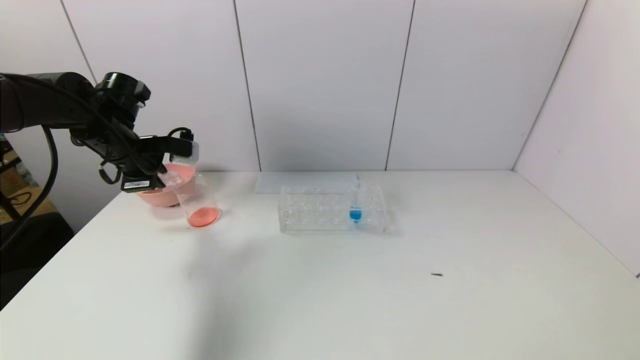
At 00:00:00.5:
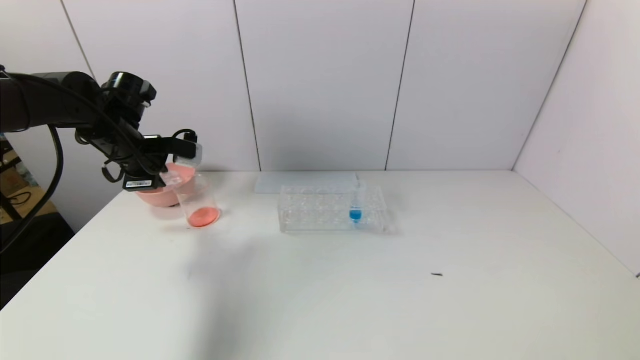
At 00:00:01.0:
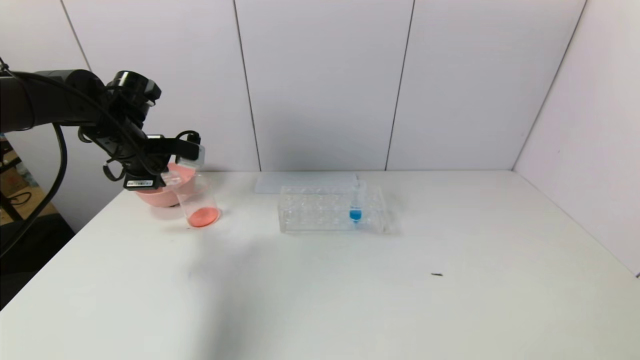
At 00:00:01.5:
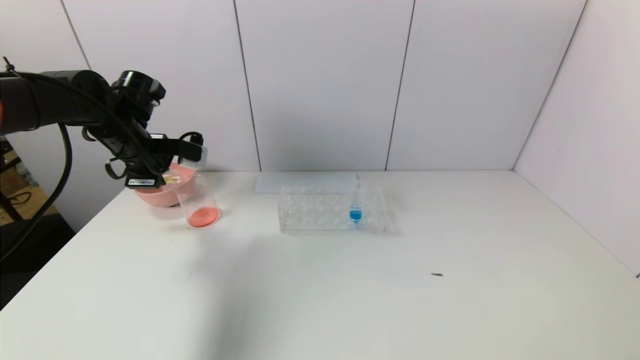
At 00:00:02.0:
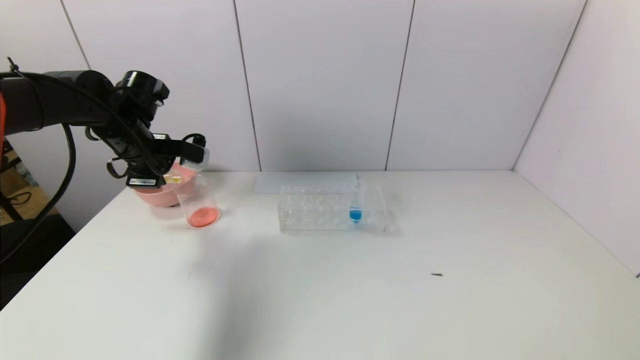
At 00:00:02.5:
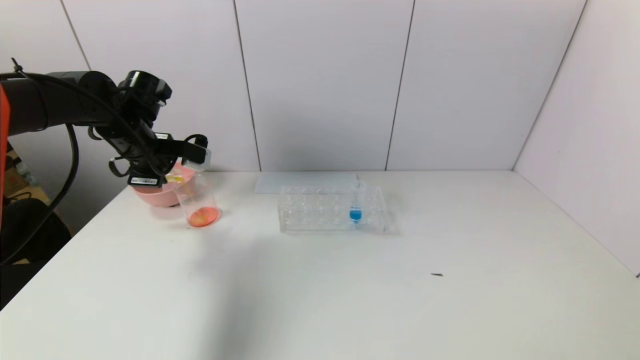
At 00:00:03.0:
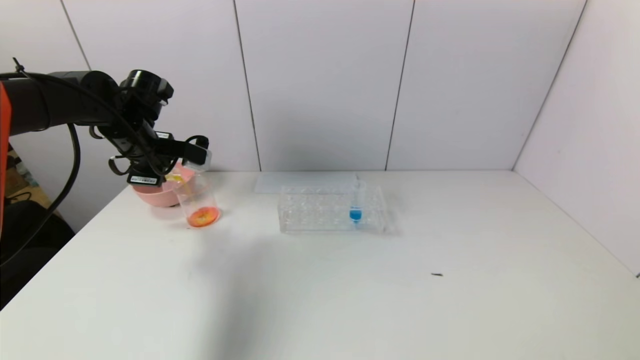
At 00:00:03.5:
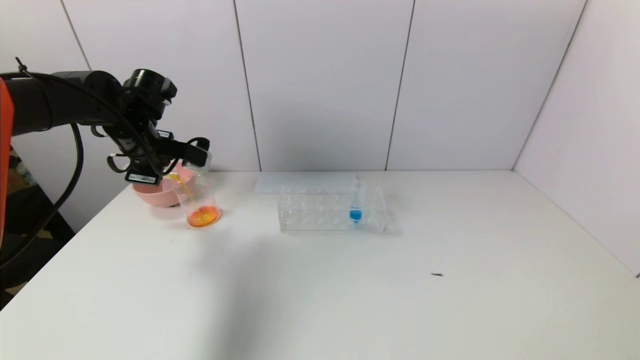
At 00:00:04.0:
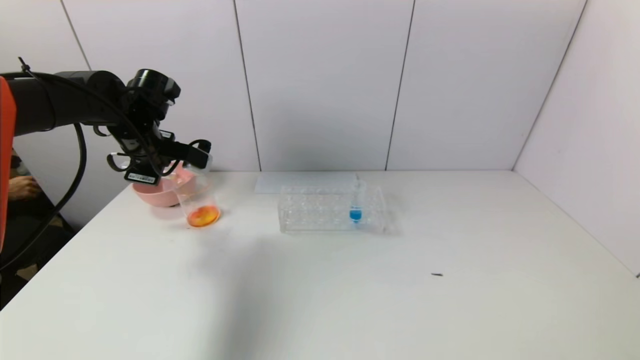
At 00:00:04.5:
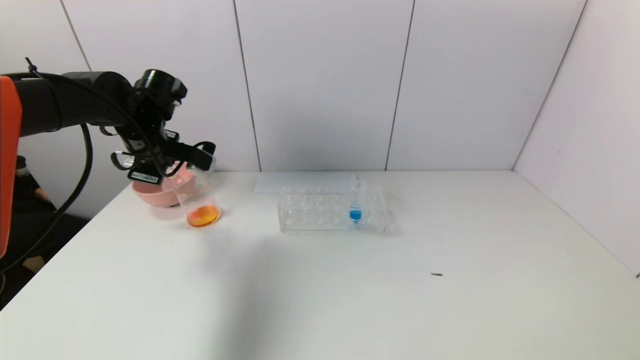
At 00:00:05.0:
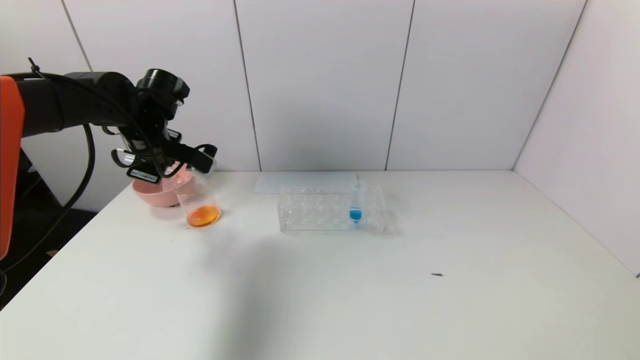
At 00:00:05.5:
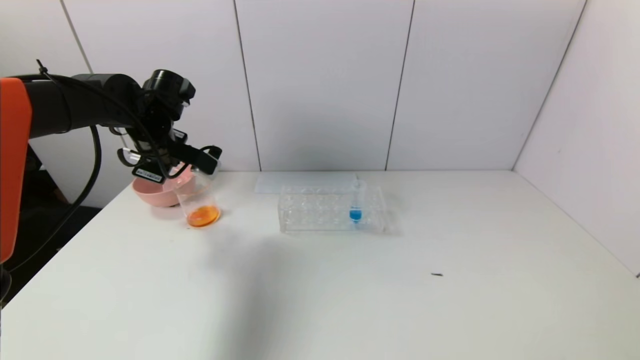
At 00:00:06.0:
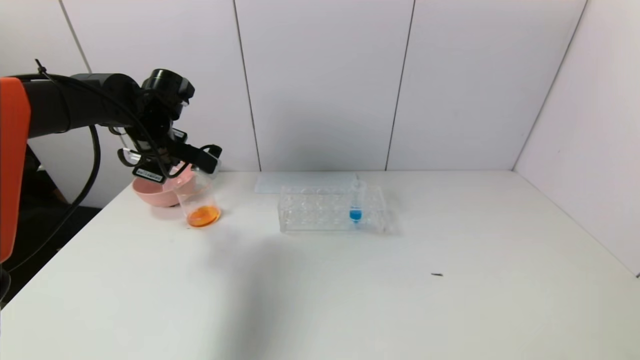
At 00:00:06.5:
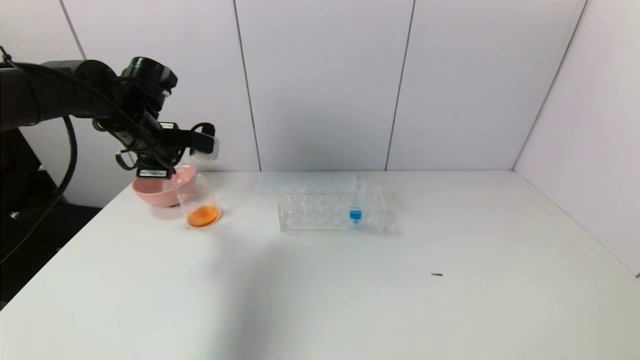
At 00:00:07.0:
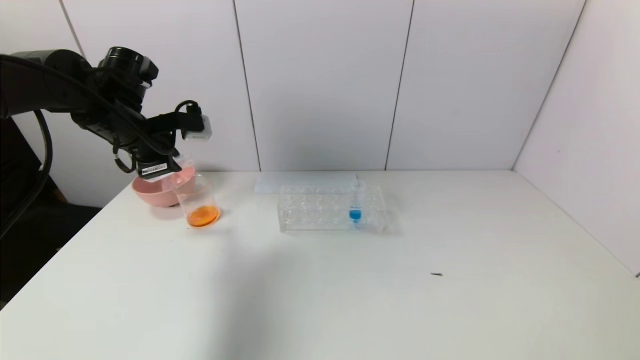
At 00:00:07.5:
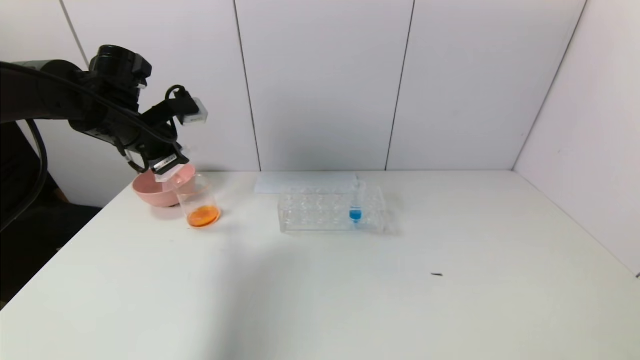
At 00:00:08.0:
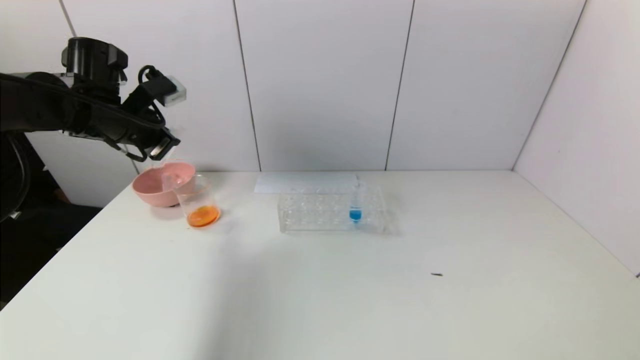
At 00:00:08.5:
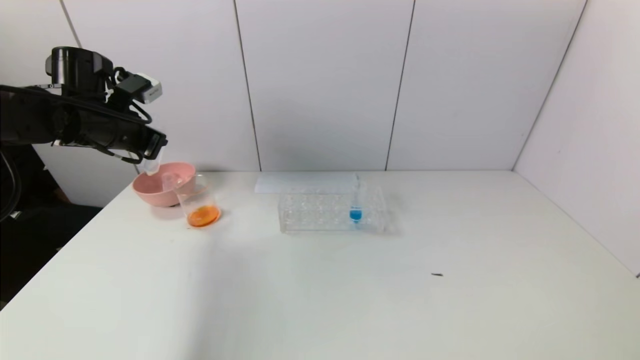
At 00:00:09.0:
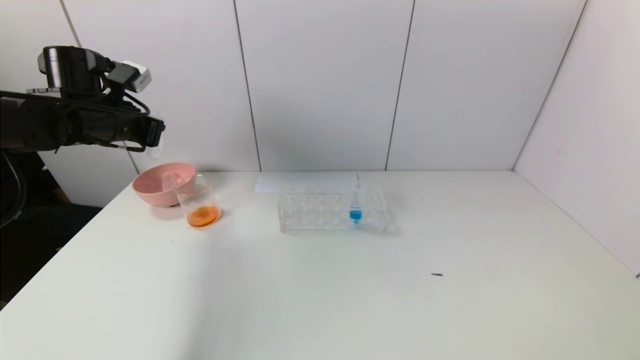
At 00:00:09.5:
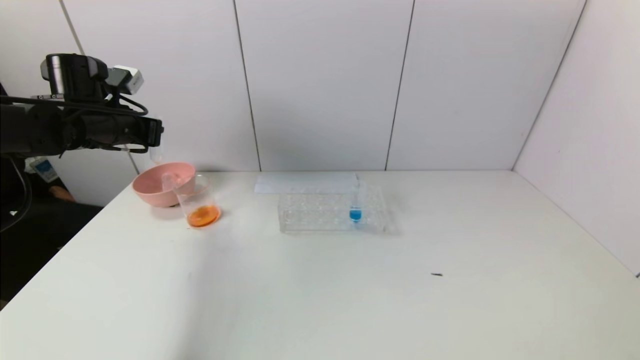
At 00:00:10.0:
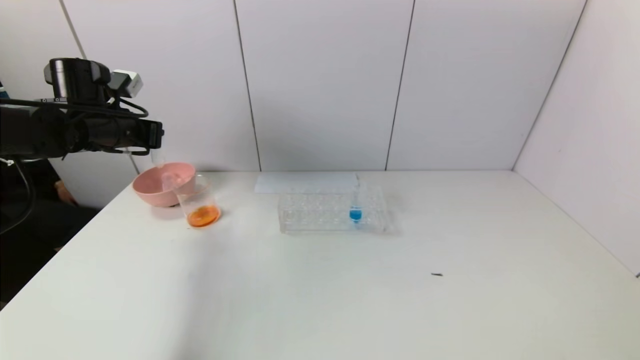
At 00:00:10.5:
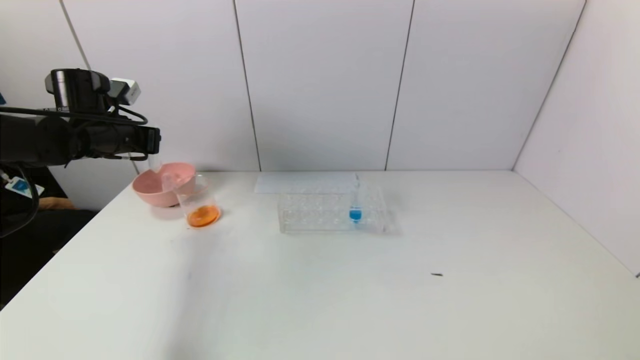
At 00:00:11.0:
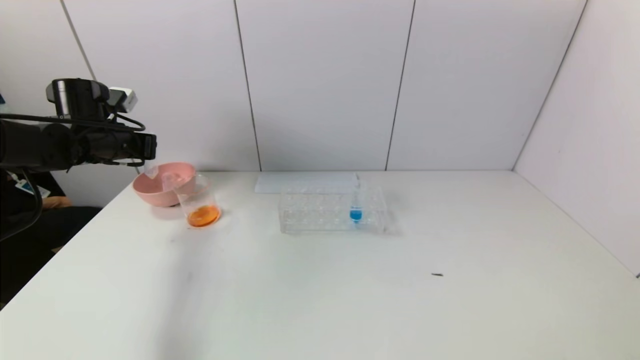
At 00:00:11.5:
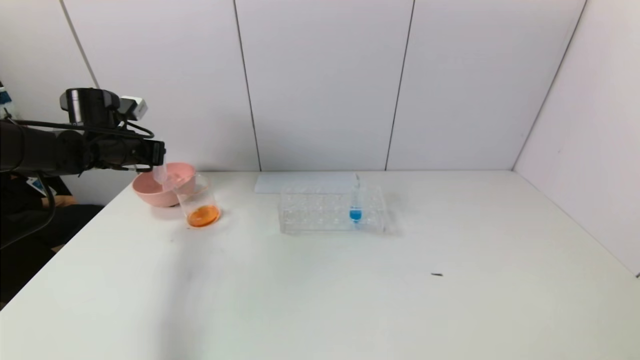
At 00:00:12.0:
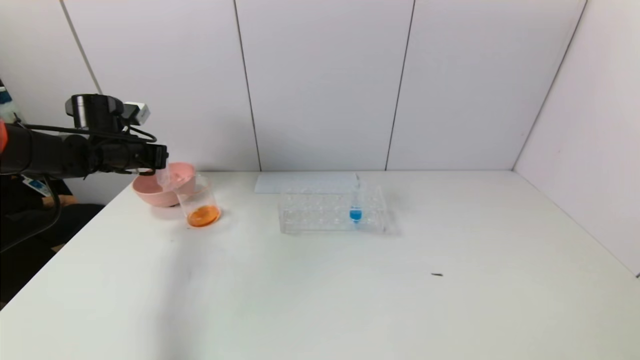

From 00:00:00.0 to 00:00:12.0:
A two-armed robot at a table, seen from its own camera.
Task of the whole recording: pick up the test tube with yellow pigment and the test tube with red pigment by grippers and pour them into the beaker.
Step, from 00:00:00.0 to 00:00:06.0: Pour the yellow reagent into the graduated cylinder with the left gripper.
From 00:00:00.0 to 00:00:02.0: There are only small adjustments of the grippers.
From 00:00:02.0 to 00:00:06.0: The grippers move only a little.
From 00:00:06.0 to 00:00:08.0: The left gripper ends up some 5 cm from where it was.
From 00:00:10.0 to 00:00:12.0: The left gripper heads downward, covering about 5 cm.

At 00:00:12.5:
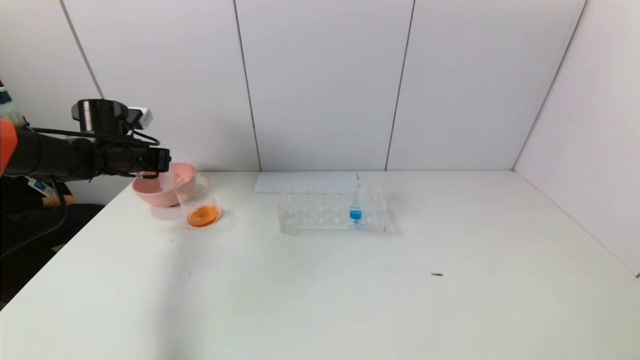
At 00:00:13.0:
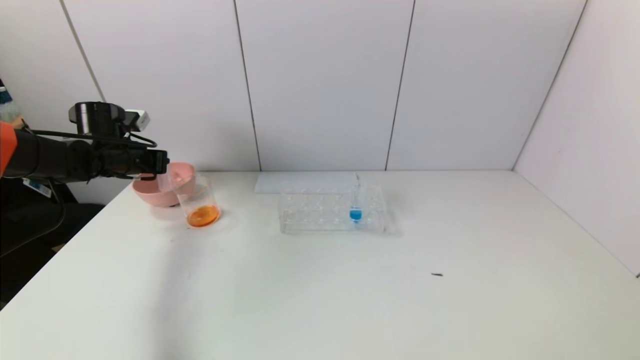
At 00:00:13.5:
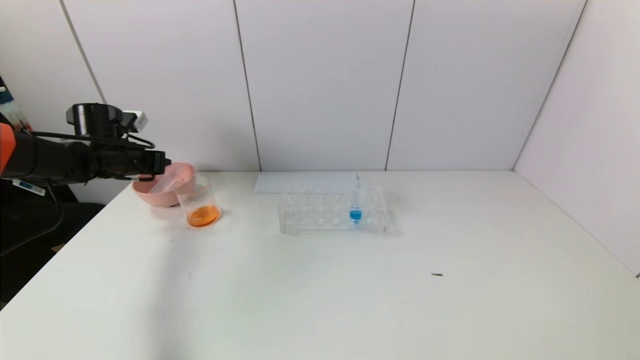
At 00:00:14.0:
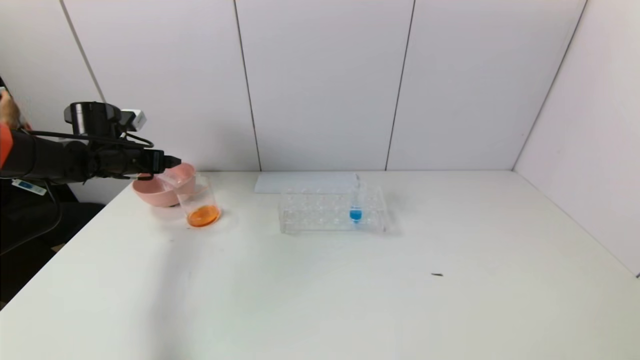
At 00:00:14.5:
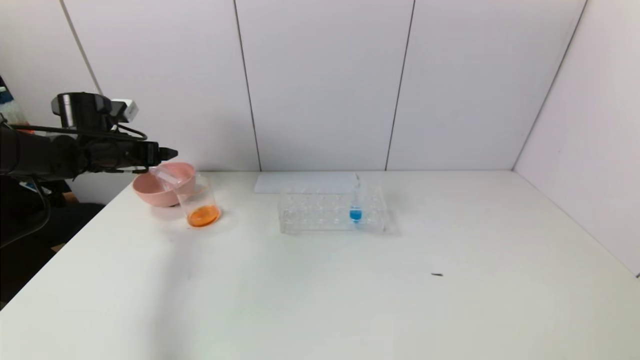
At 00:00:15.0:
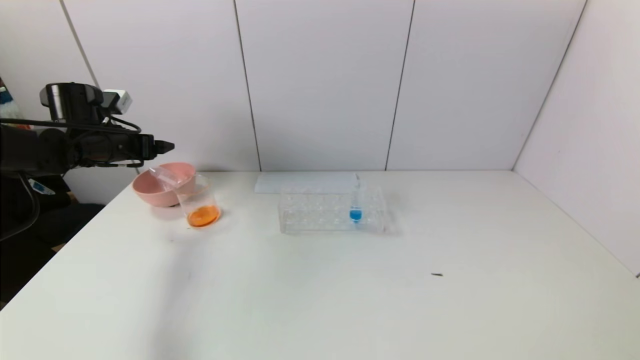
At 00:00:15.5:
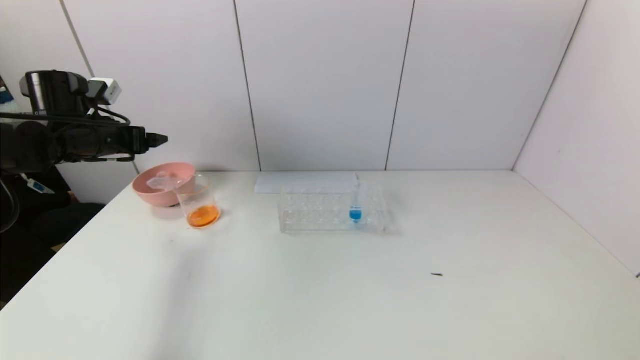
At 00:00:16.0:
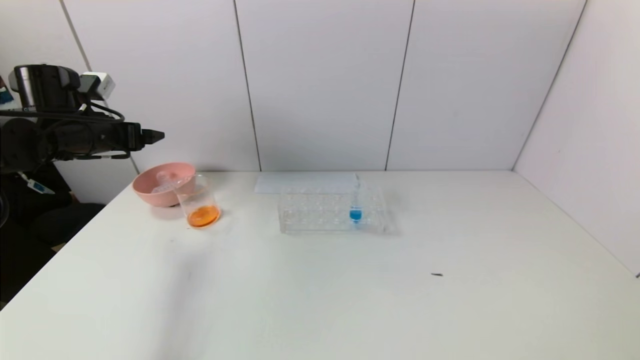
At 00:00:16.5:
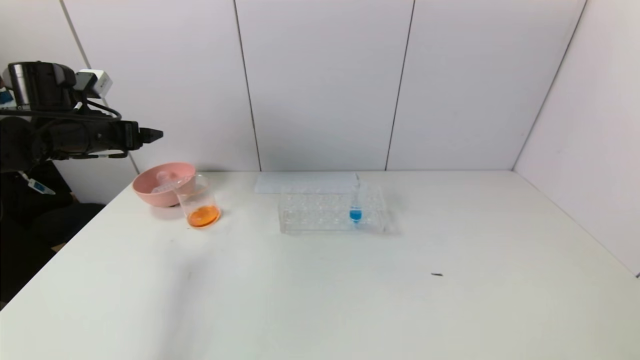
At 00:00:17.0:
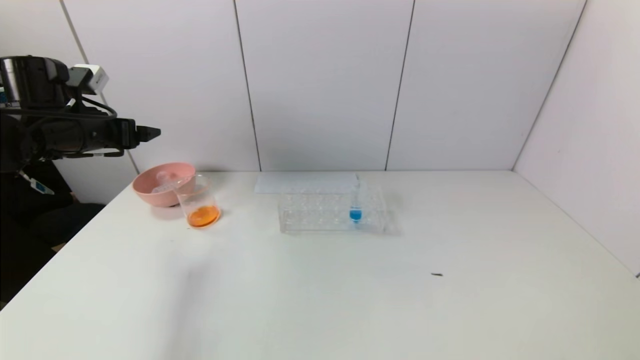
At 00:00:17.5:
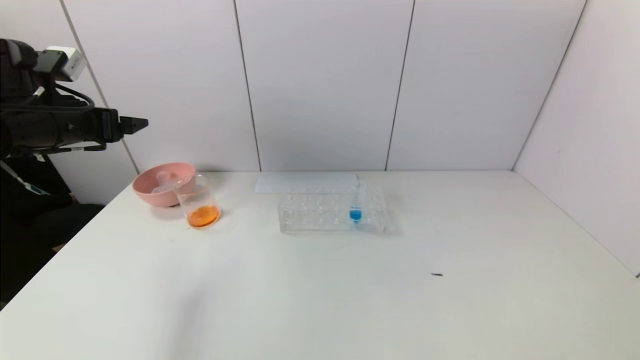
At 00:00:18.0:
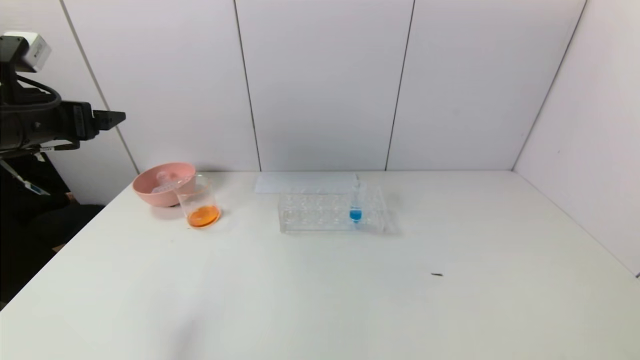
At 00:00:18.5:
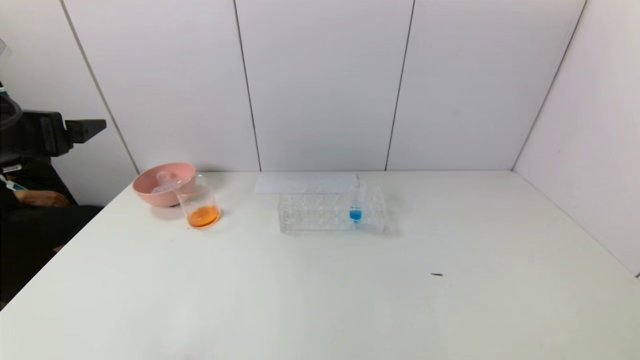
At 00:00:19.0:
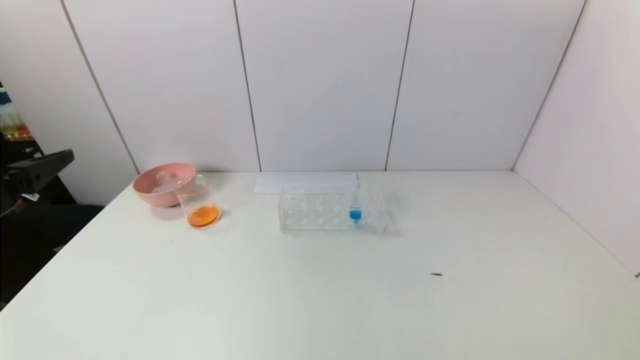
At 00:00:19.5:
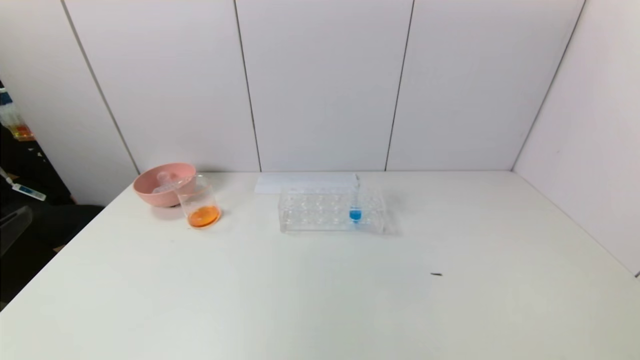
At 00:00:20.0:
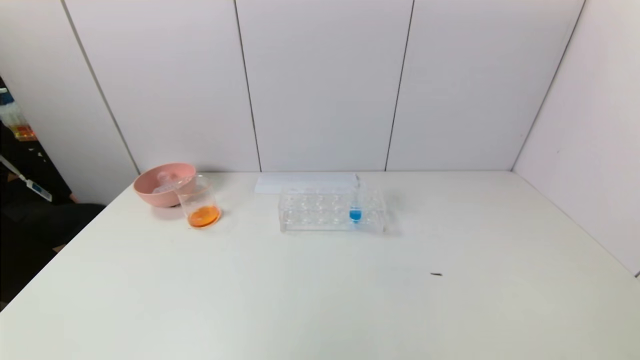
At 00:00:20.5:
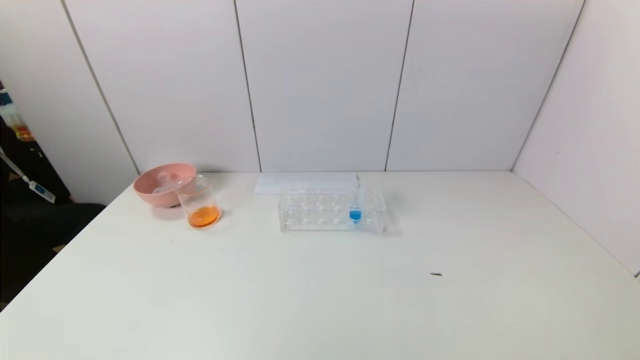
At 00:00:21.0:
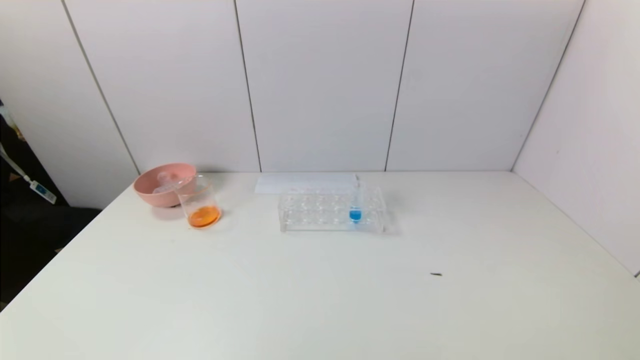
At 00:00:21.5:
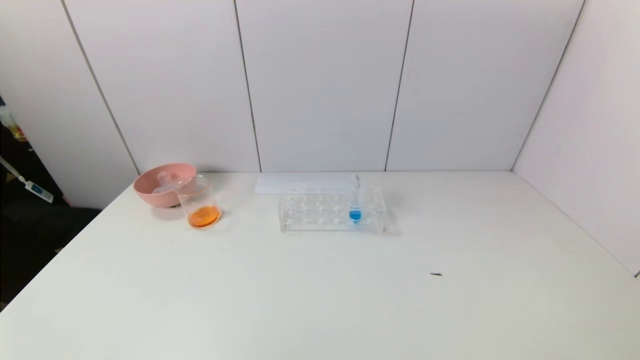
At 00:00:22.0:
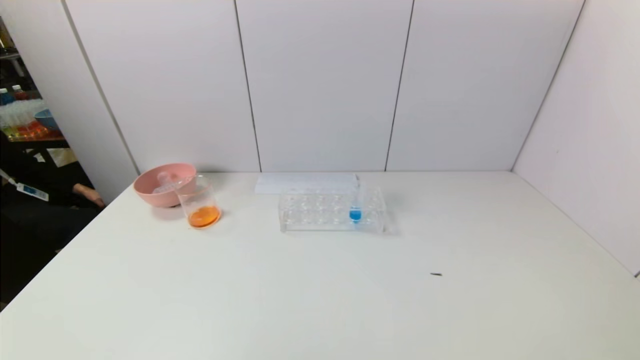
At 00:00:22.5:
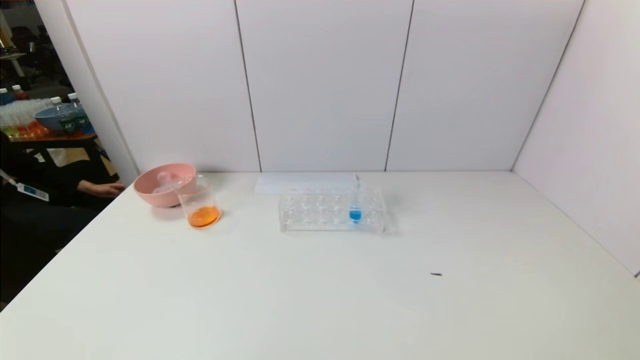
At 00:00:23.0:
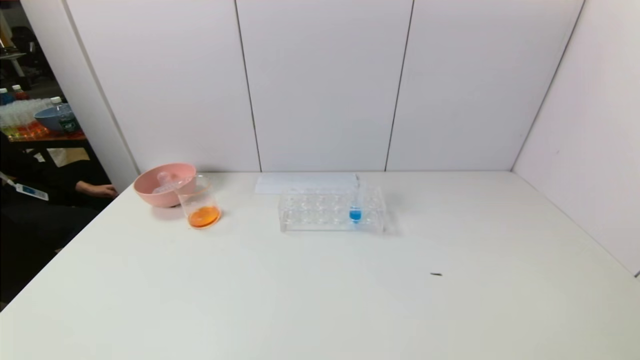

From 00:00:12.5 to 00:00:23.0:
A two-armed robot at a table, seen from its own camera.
Task of the whole recording: pick up the test tube with yellow pigment and the test tube with red pigment by grippers and pour them into the beaker.
From 00:00:12.5 to 00:00:14.5: The left gripper opens its fingers.
From 00:00:14.5 to 00:00:16.5: The left gripper heads upward, covering approximately 5 cm.
From 00:00:16.5 to 00:00:19.0: The left gripper goes approximately 25 cm backward.
From 00:00:19.0 to 00:00:21.0: The left gripper travels backward and downward by some 20 cm.
From 00:00:21.0 to 00:00:23.0: The left gripper goes some 10 cm downward and forward.
